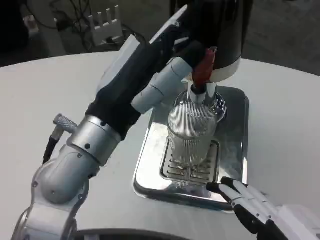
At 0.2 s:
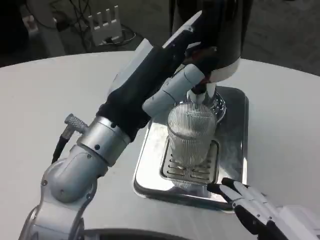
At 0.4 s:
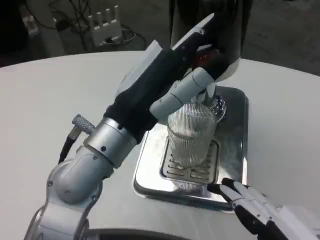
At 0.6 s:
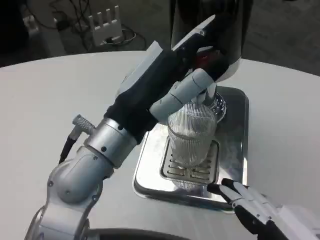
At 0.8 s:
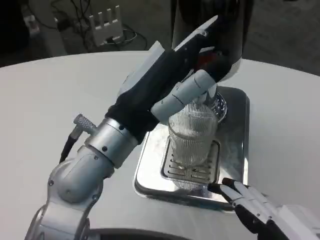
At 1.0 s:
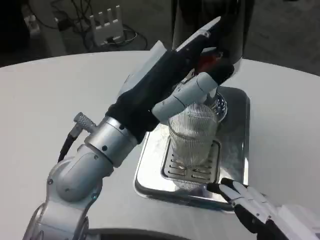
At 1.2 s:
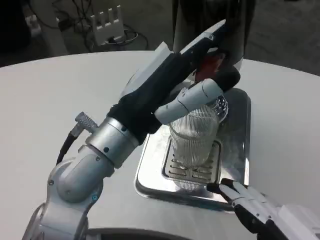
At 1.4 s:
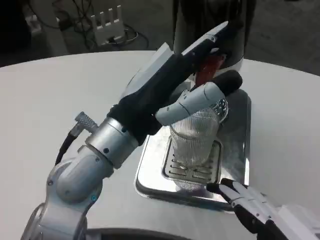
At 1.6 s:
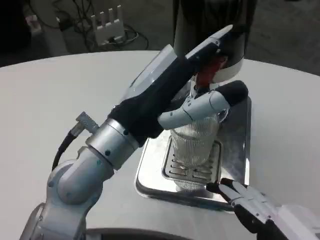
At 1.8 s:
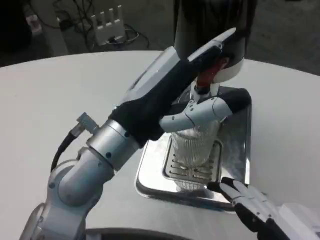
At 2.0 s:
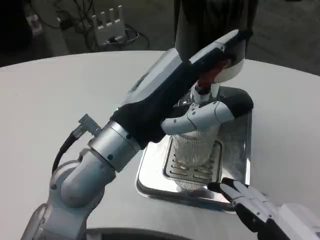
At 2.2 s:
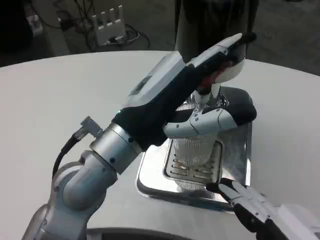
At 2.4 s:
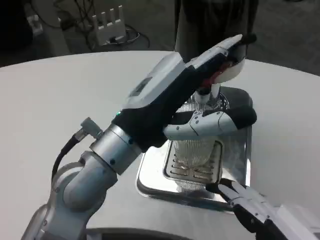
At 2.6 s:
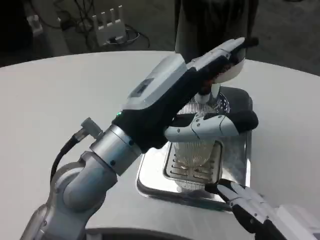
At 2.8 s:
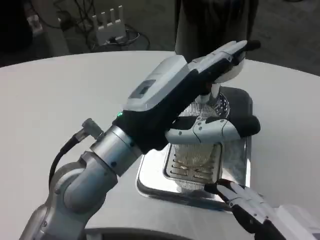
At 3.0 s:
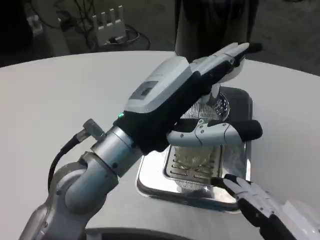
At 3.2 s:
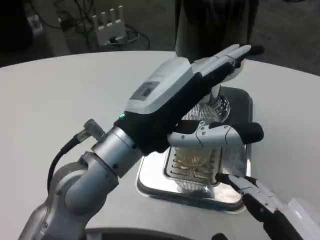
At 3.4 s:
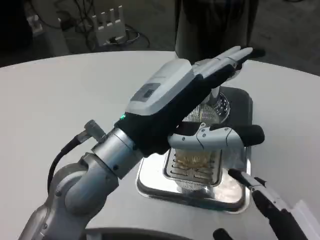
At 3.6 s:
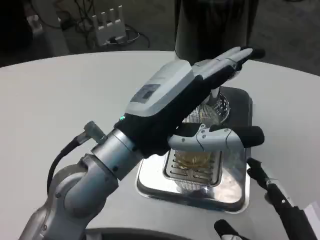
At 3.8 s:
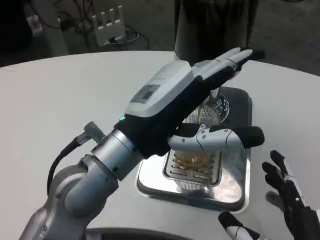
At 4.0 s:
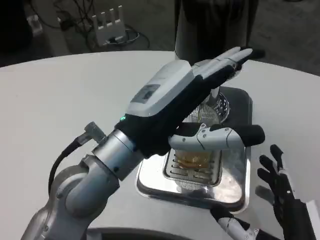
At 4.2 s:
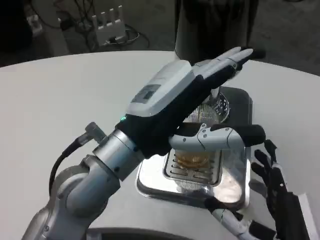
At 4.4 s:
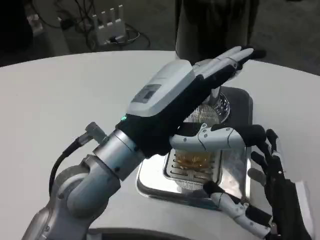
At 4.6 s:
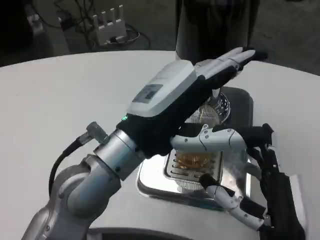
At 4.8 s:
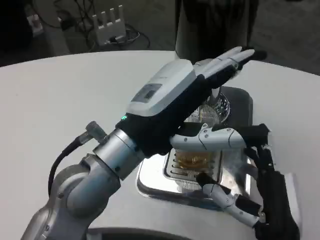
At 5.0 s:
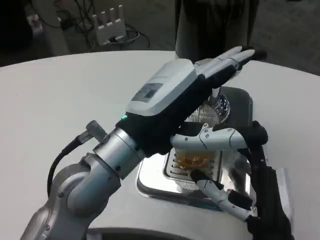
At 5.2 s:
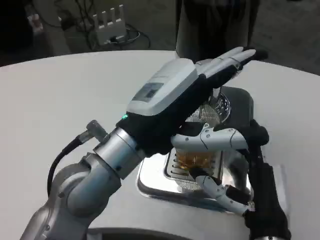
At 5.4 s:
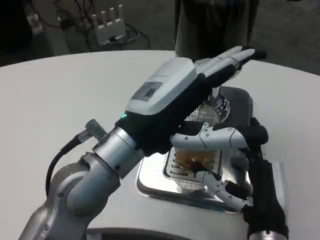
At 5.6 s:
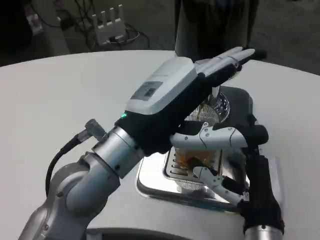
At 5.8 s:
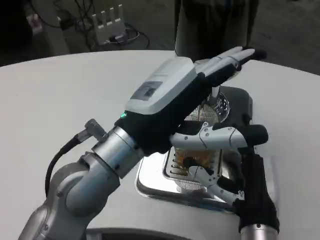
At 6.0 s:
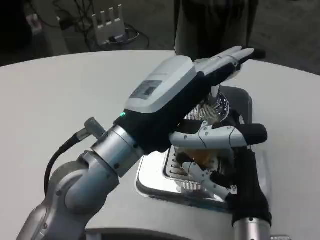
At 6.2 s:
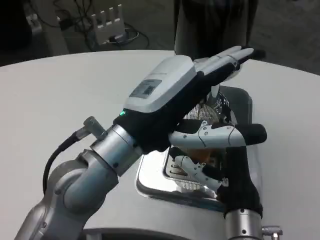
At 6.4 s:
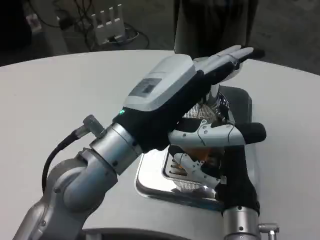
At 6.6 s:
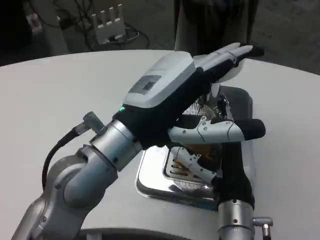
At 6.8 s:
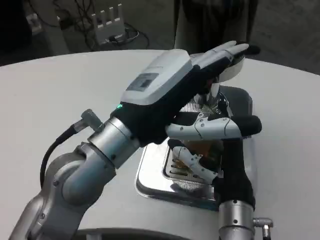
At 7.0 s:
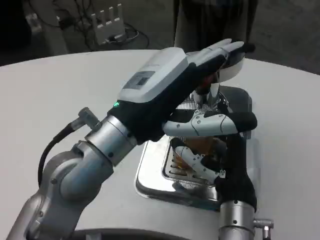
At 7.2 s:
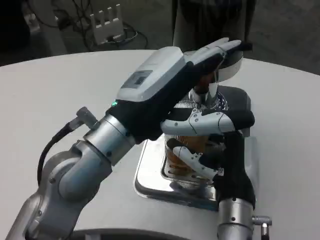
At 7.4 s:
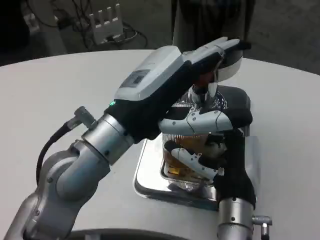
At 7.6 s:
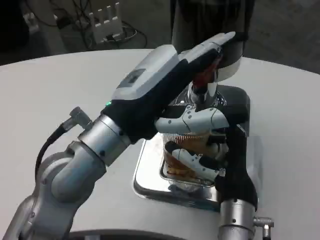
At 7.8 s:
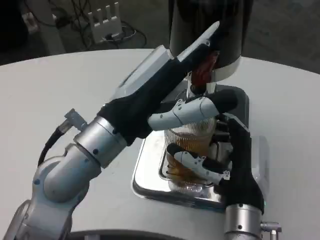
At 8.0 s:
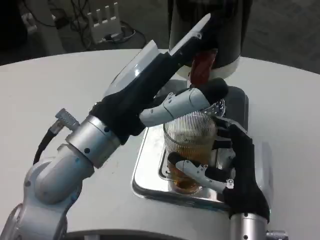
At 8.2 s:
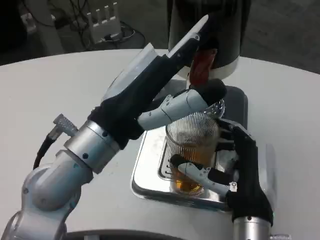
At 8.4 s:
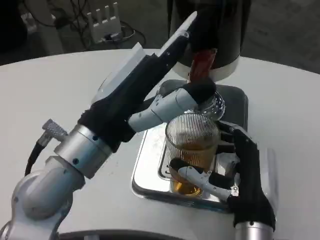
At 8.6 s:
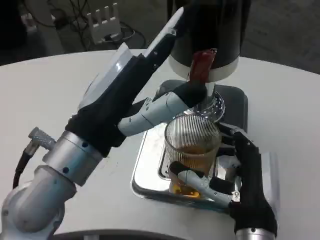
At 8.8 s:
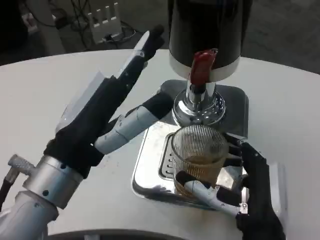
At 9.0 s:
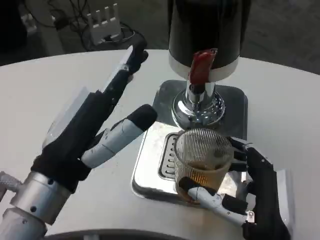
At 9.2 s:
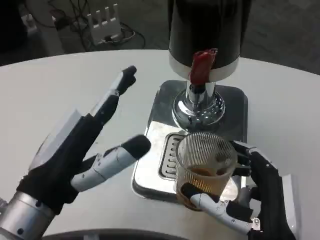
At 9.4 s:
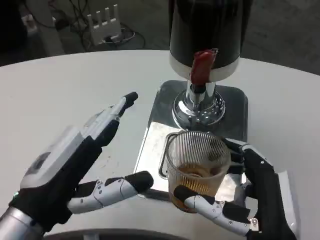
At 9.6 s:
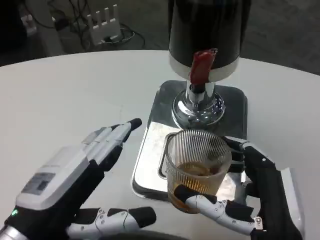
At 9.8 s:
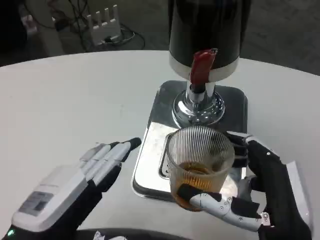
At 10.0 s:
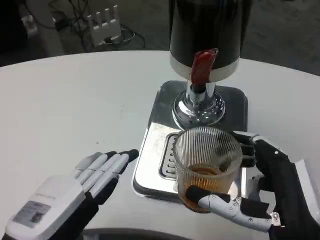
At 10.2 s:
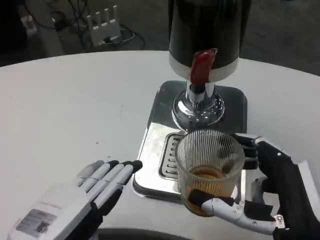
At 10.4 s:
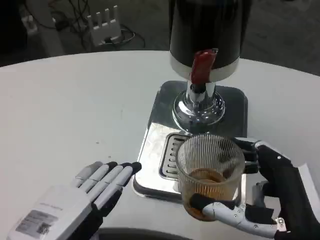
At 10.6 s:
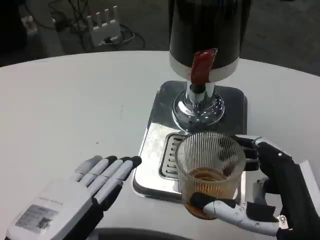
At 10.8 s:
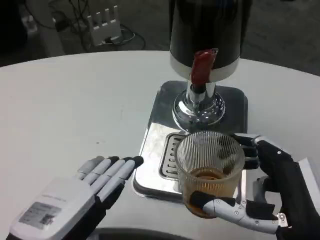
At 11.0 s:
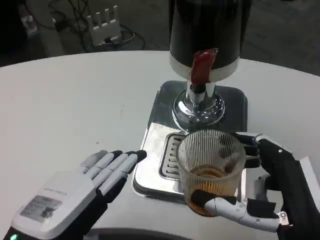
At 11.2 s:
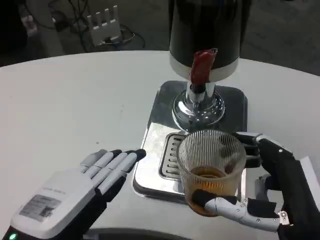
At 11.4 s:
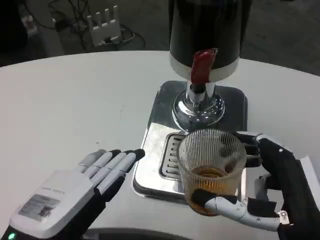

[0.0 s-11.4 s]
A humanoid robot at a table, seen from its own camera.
Task of the whole recording: Grasp the cup under the faucet to collect the drink, then remove the cup.
2.8 to 4.2 s: The right hand shifts about 10 cm downward and forward.
4.2 to 5.6 s: The right hand shifts approximately 5 cm forward.
5.6 to 7.2 s: The right hand moves approximately 5 cm.
7.2 to 8.6 s: The right hand goes some 5 cm backward. The left hand changes place by some 5 cm.
8.6 to 10.0 s: The right hand travels backward by approximately 5 cm. Meanwhile the left hand goes approximately 15 cm downward, to the left and backward.
10.0 to 11.4 s: There are only small adjustments of the hands.

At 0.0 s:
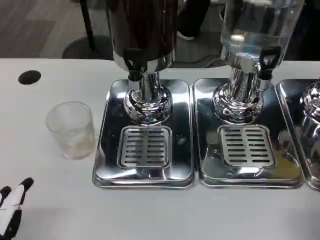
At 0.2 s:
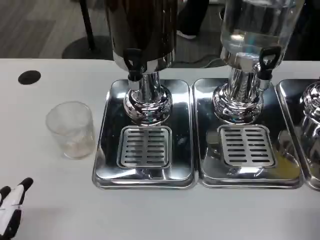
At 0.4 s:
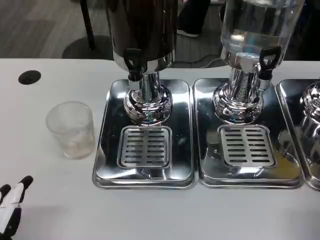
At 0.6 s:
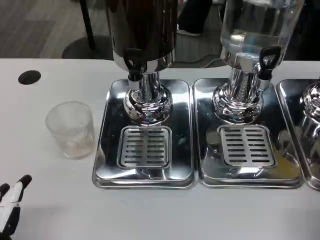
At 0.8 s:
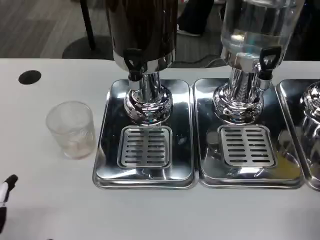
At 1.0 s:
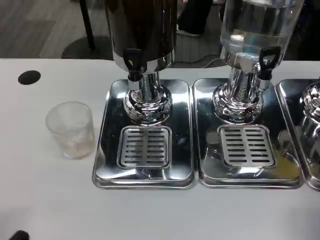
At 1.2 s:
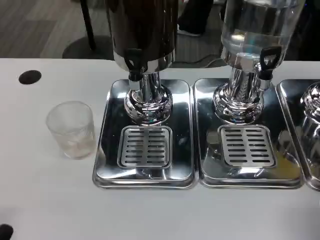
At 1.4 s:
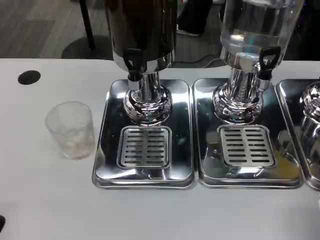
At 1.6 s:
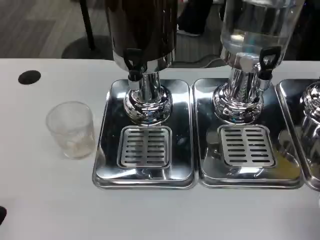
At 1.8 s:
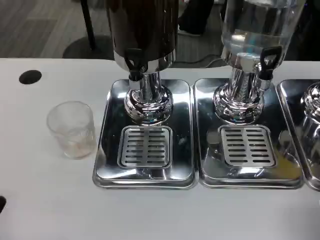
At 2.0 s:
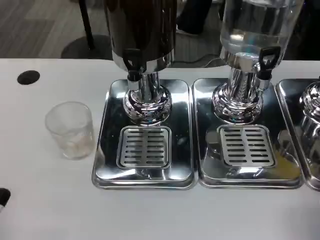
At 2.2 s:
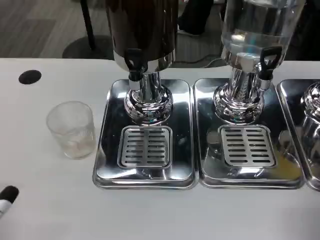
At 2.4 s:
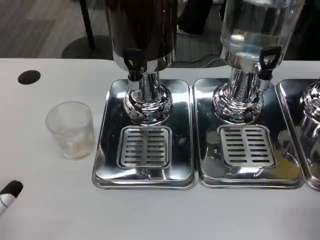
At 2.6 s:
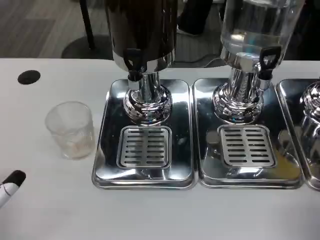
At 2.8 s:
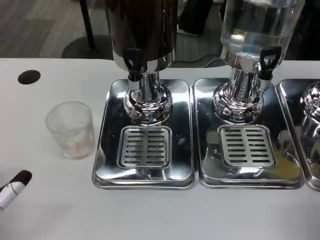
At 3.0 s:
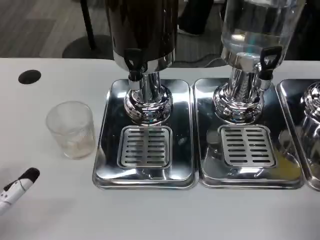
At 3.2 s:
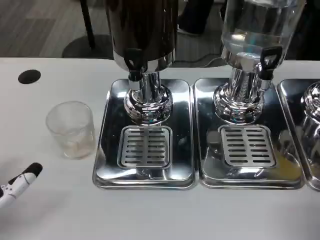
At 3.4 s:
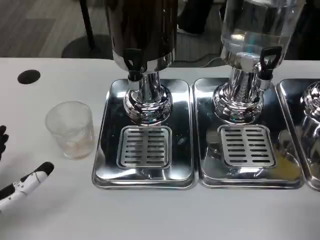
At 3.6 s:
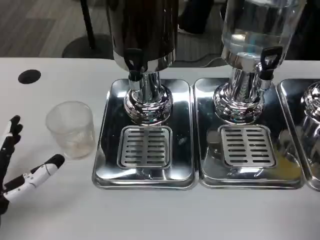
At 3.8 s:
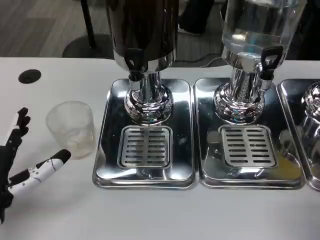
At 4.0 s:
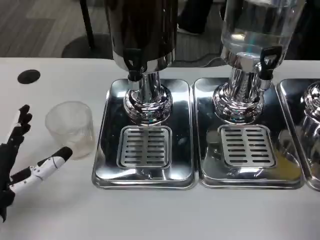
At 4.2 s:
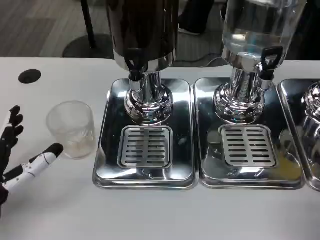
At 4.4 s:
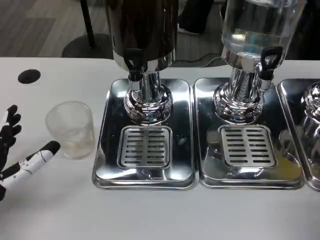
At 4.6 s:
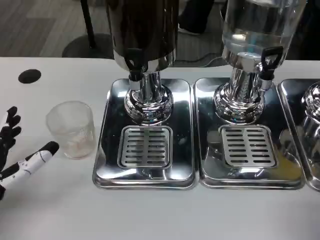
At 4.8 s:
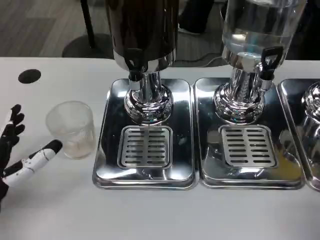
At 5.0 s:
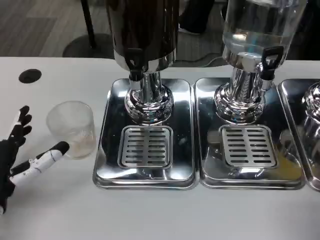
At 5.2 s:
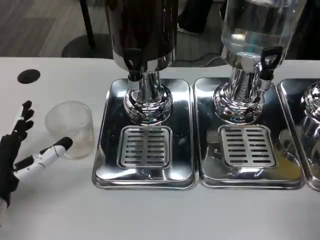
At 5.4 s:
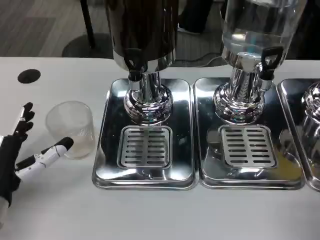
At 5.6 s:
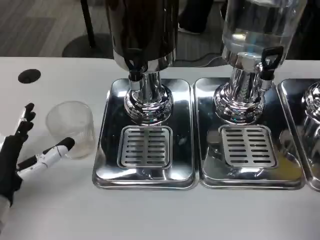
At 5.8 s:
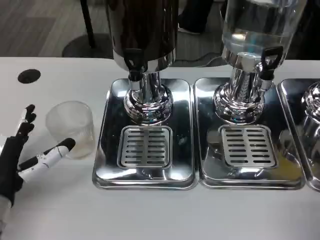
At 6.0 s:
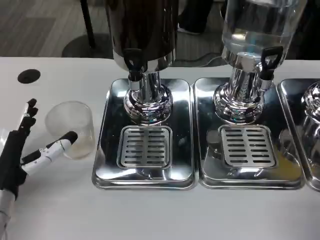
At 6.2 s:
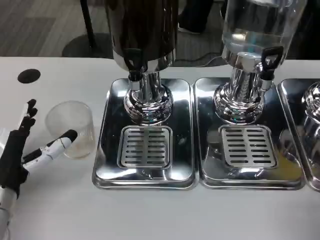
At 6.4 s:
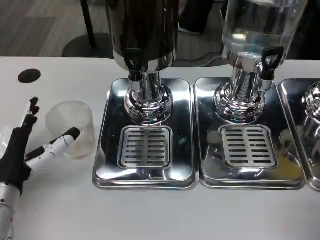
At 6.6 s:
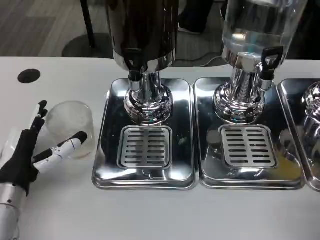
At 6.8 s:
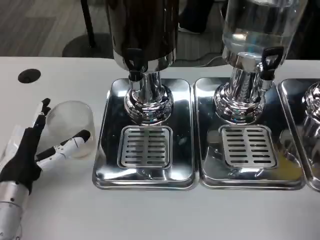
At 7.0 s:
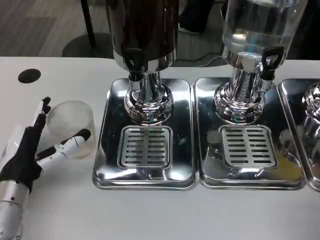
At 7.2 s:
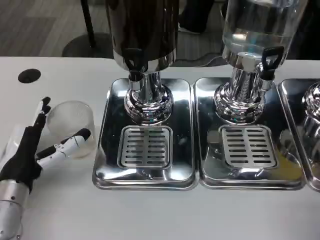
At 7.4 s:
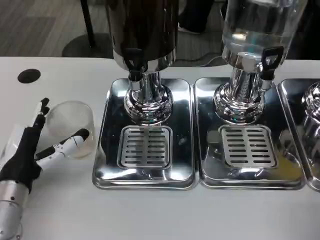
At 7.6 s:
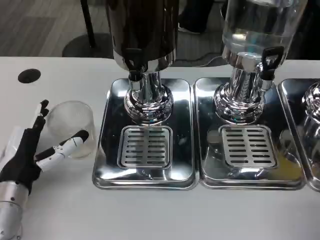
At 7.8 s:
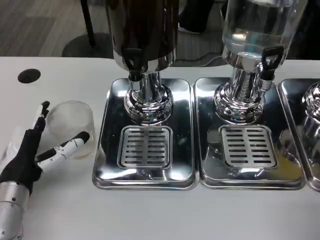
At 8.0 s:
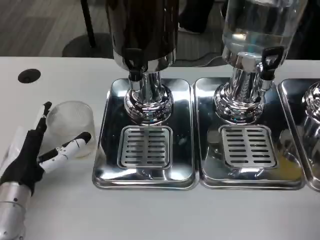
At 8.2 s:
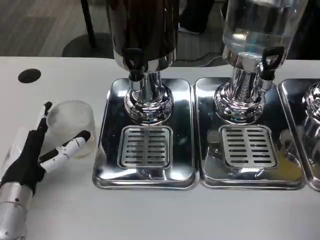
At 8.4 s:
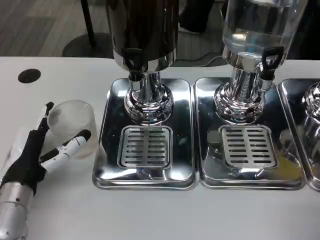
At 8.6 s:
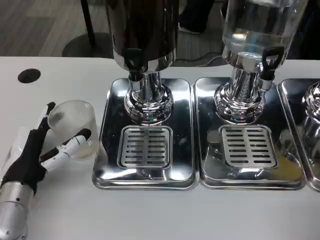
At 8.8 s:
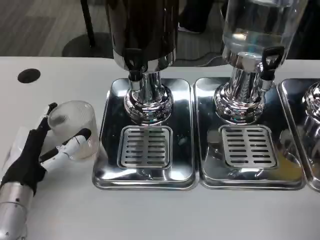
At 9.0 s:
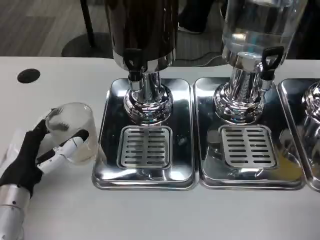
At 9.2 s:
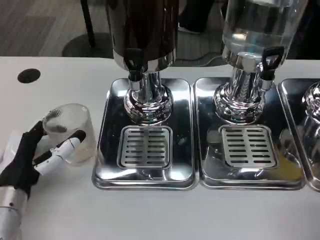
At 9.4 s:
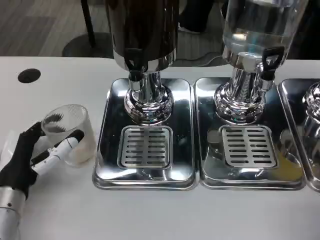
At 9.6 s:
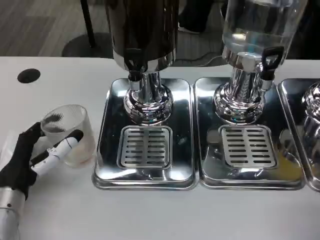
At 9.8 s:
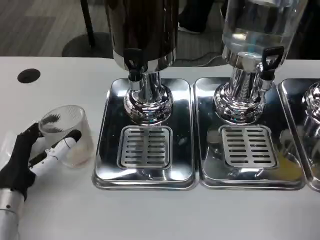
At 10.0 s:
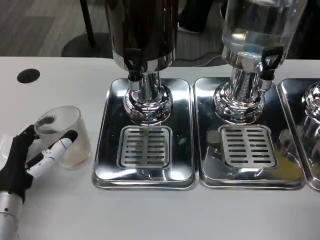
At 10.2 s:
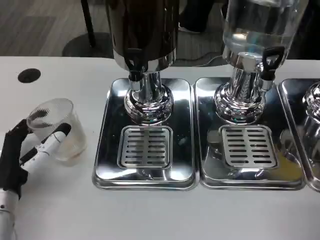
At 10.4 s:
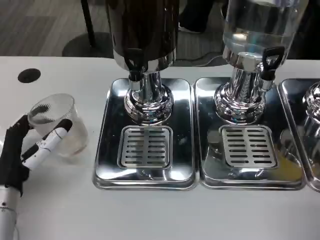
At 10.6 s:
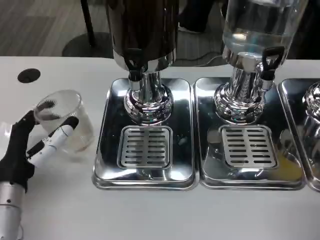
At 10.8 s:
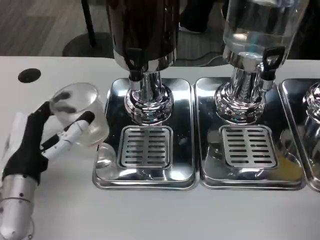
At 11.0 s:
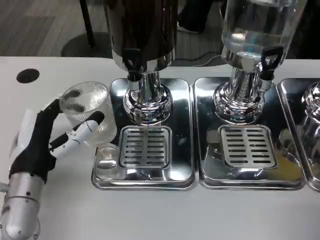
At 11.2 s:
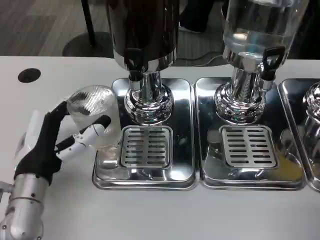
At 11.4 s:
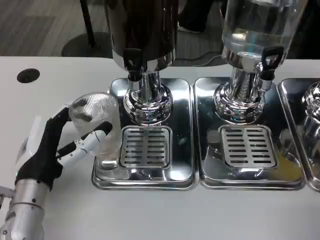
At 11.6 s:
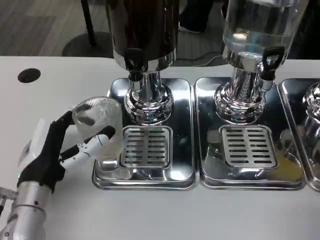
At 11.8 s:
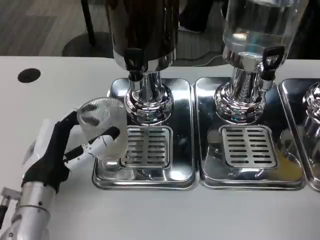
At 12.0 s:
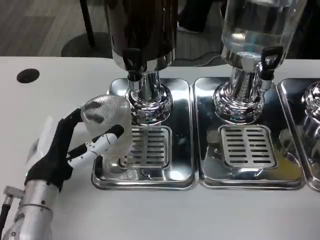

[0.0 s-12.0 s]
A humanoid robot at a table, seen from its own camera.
Task of the whole recording: Grasp the cup under the faucet to collect the drink, then remove the cup.
1.6 to 3.0 s: The left hand is displaced forward by roughly 10 cm.
3.0 to 4.4 s: The left hand goes roughly 5 cm forward.
4.4 to 7.6 s: The hands stay close to where they were, moving slightly.
7.6 to 9.0 s: Both hands stay put.
9.0 to 10.4 s: There are only small adjustments of the hands.
